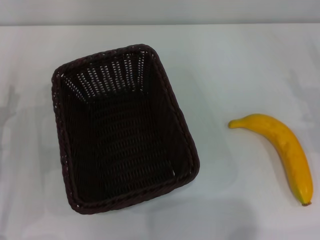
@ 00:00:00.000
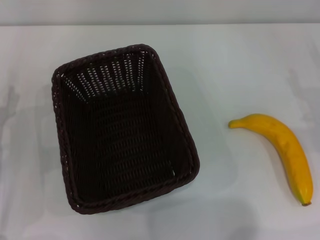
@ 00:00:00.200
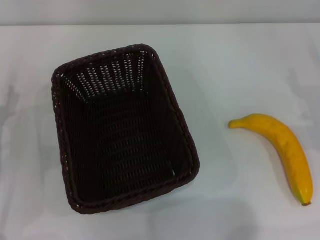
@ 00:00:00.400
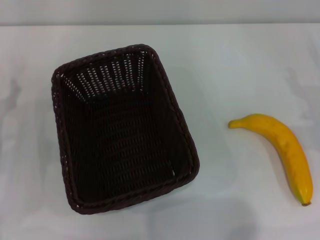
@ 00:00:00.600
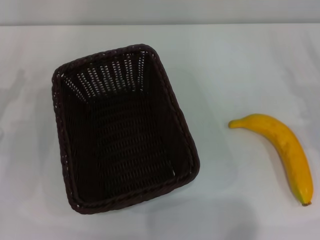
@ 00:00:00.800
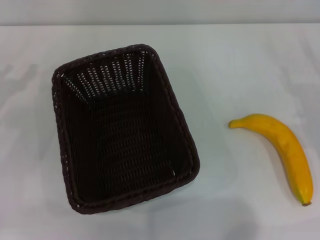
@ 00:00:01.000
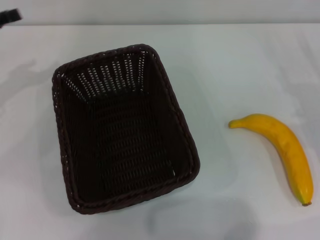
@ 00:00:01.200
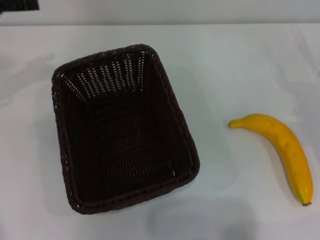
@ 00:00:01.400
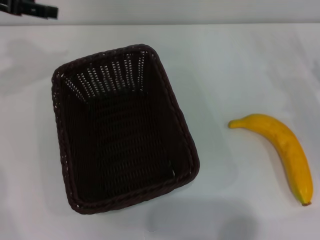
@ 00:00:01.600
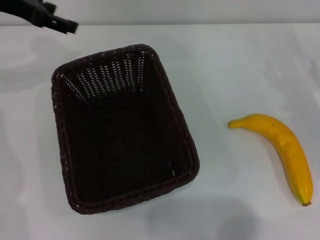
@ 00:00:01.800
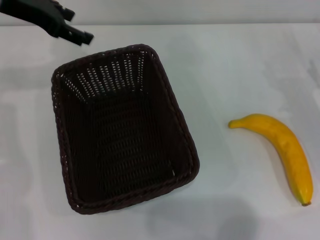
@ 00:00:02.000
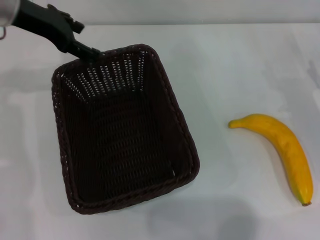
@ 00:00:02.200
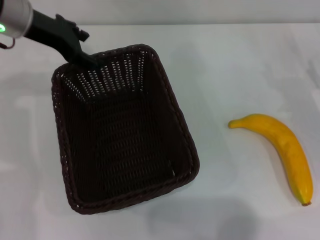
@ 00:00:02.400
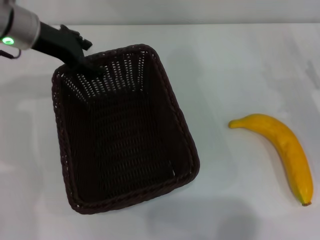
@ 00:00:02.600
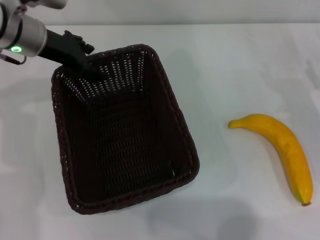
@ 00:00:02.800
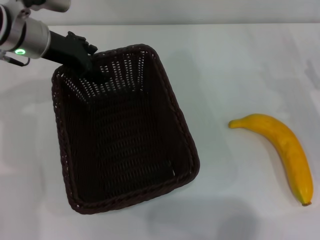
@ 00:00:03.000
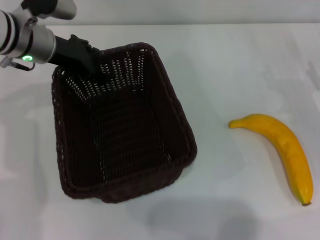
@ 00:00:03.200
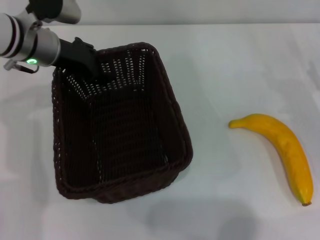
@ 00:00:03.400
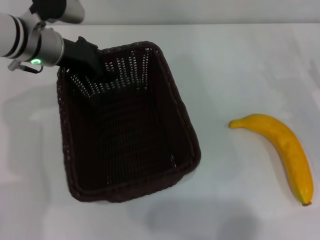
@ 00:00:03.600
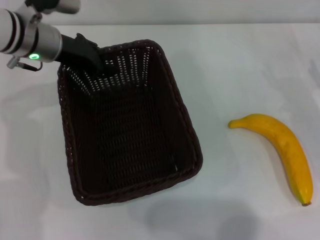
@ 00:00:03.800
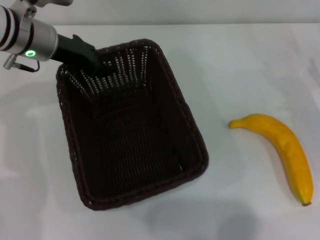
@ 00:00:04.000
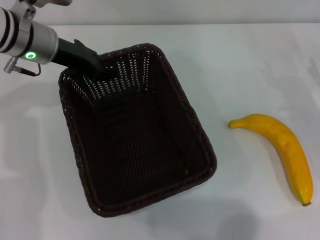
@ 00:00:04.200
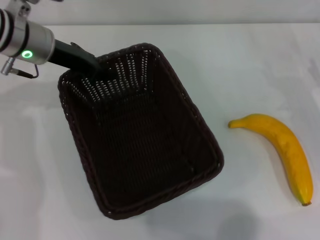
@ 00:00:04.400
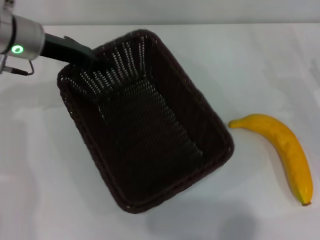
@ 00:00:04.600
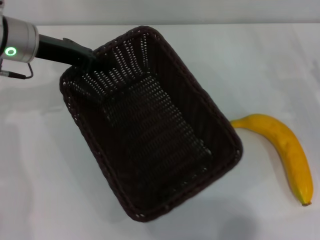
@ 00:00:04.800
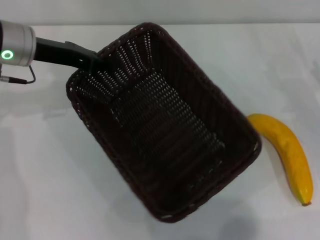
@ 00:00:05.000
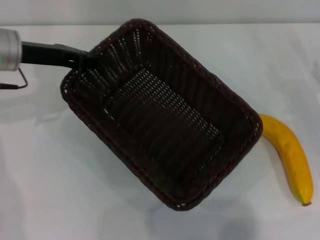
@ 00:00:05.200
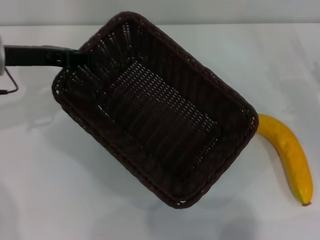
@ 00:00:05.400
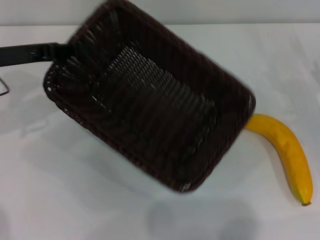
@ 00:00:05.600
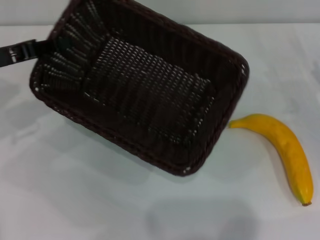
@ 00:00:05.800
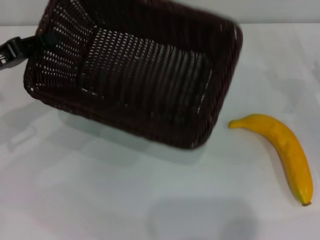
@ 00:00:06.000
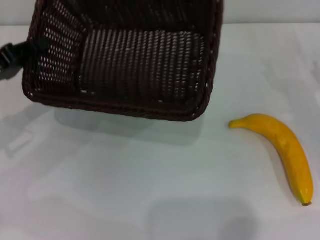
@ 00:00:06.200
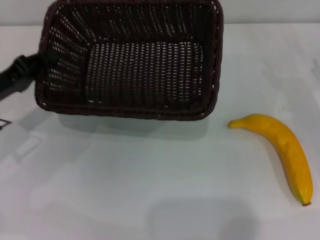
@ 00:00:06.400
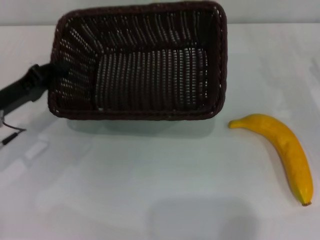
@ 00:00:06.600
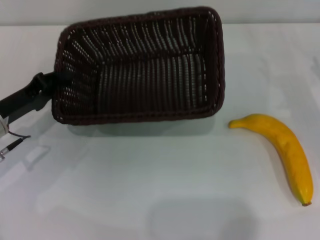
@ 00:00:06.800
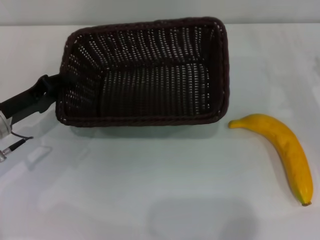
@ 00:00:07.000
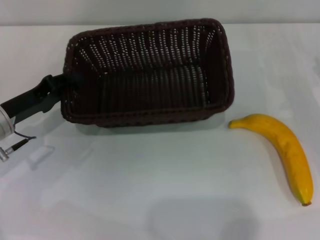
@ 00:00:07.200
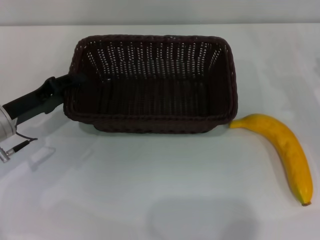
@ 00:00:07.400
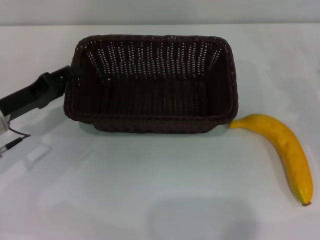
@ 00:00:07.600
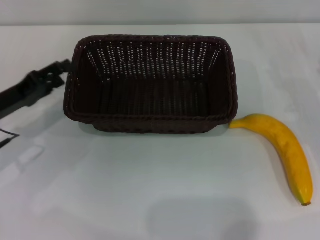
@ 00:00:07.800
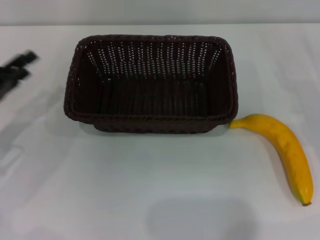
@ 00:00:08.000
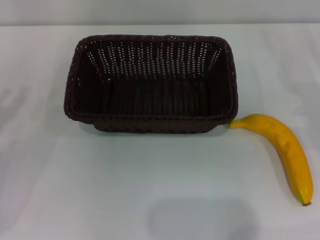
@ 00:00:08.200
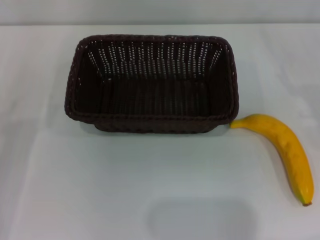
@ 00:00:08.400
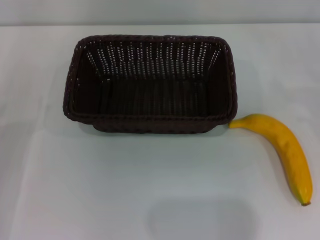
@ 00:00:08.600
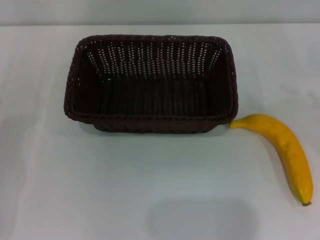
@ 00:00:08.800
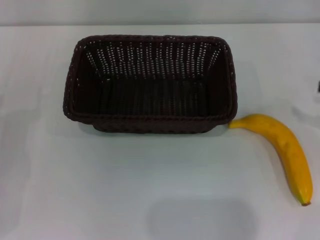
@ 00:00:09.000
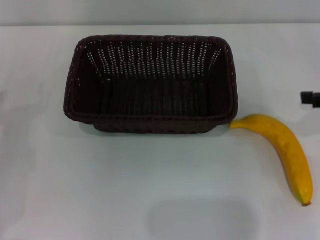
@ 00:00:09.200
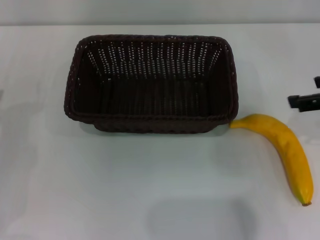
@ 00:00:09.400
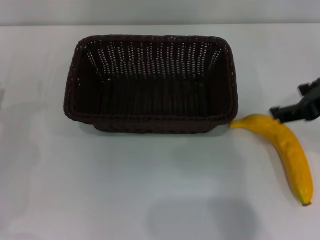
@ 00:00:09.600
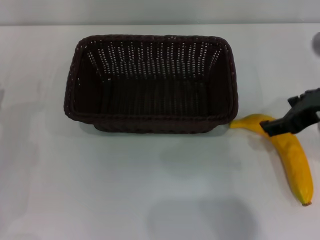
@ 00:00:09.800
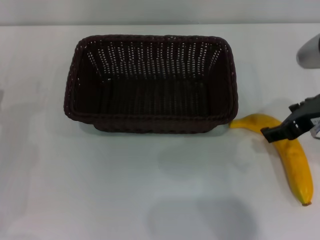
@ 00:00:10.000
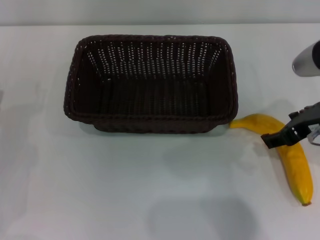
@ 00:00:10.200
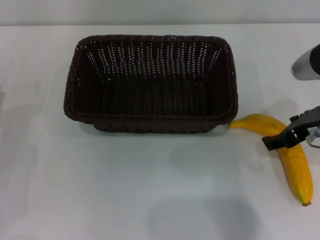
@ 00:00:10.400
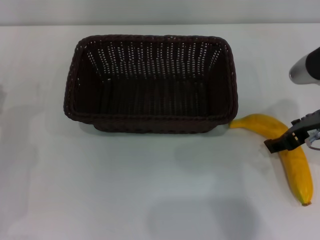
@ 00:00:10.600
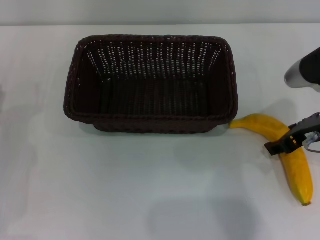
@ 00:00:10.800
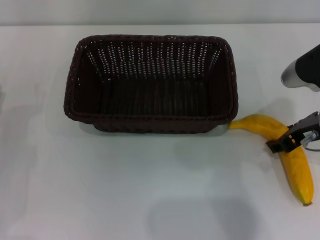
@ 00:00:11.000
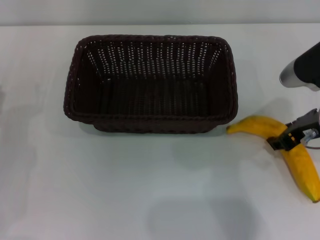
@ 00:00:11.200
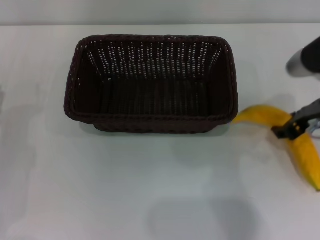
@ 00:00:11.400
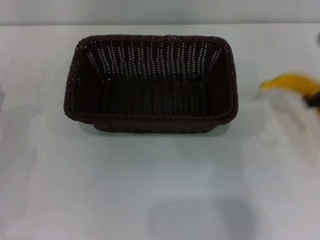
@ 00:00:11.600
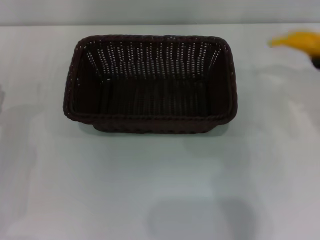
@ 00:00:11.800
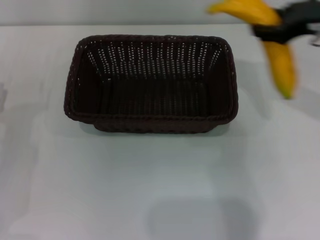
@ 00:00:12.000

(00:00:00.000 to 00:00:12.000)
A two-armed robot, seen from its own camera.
Step, 00:00:00.000 - 00:00:04.800: Pick up the dark basket with the left gripper.
Step, 00:00:05.000 - 00:00:07.800: Place the dark basket in the center of view with the left gripper.
Step, 00:00:08.000 - 00:00:11.600: Pick up the banana with the right gripper.
00:00:00.000 - 00:00:01.600: The left gripper moves upward and forward, approximately 25 cm.
00:00:01.600 - 00:00:03.000: The left gripper moves to the right and downward, approximately 15 cm.
00:00:03.000 - 00:00:04.400: The left gripper closes up.
00:00:04.400 - 00:00:06.000: The left gripper moves to the left and backward, roughly 15 cm.
00:00:06.000 - 00:00:07.600: The left gripper moves downward, about 5 cm.
00:00:07.600 - 00:00:09.000: The left gripper moves to the left and backward, roughly 10 cm, and opens.
00:00:09.000 - 00:00:10.400: The right gripper travels to the left by approximately 15 cm.
00:00:10.400 - 00:00:12.000: The right gripper moves upward and forward, approximately 10 cm, and closes.

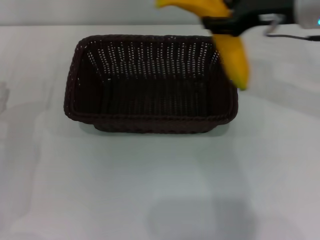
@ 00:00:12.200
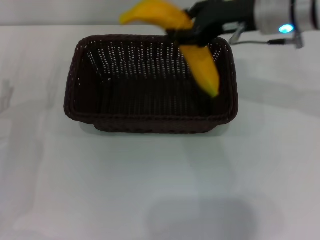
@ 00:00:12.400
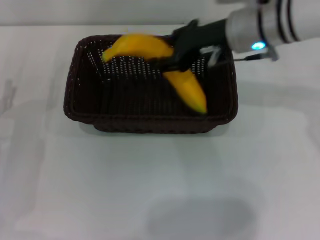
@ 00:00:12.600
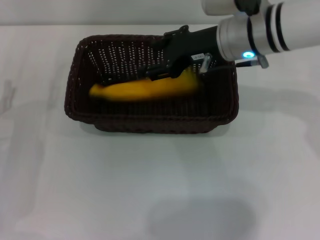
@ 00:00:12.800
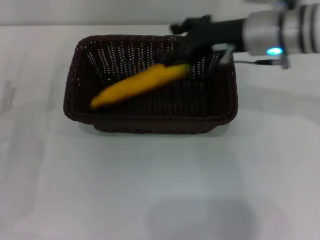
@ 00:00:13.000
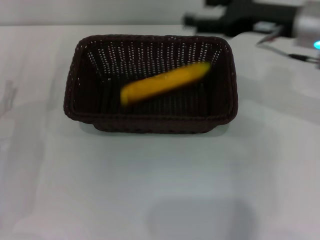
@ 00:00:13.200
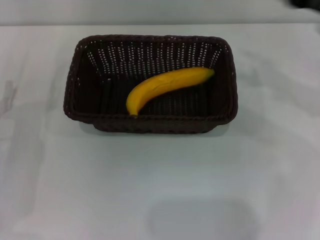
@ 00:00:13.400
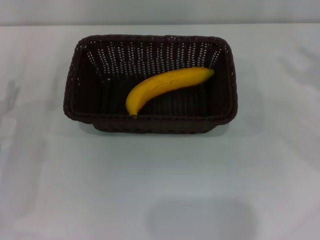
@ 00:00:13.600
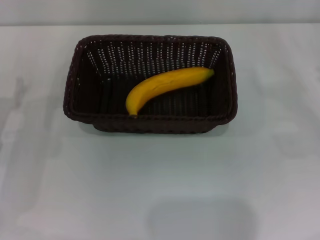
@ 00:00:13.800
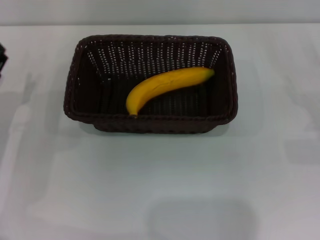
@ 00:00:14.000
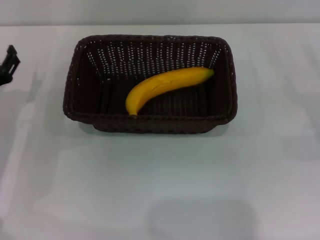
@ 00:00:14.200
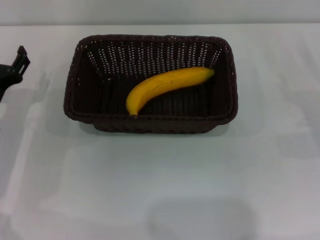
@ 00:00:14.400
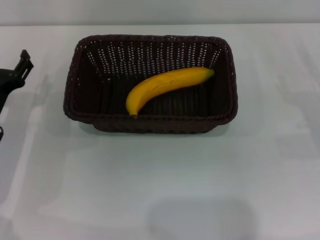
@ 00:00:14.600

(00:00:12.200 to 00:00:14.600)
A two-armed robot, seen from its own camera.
Step, 00:00:12.200 - 00:00:13.000: Place the banana into the dark basket with the right gripper.
00:00:12.200 - 00:00:13.400: The right gripper goes roughly 10 cm to the right, and opens its fingers.
00:00:13.400 - 00:00:14.600: The right gripper heads downward, to the right and backward, covering some 20 cm. The left gripper ends up roughly 5 cm from where it was.
